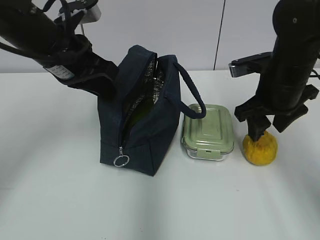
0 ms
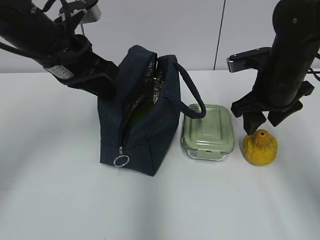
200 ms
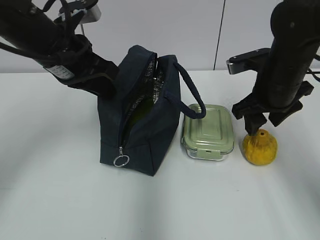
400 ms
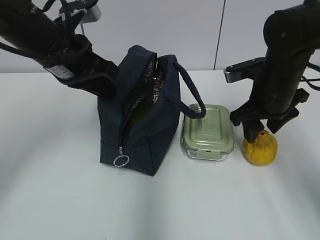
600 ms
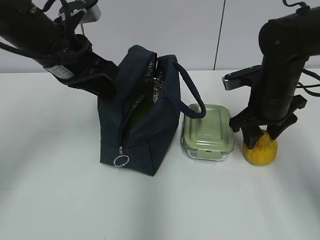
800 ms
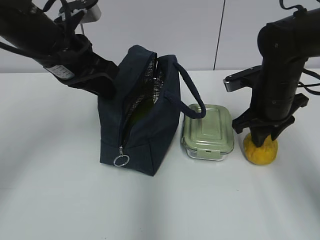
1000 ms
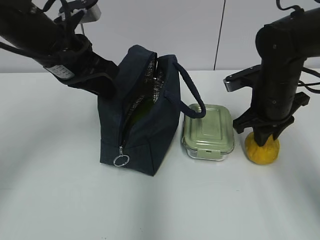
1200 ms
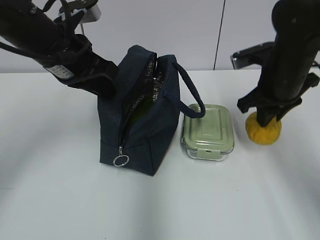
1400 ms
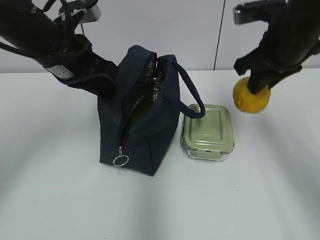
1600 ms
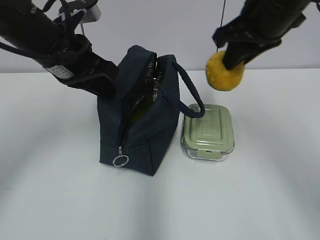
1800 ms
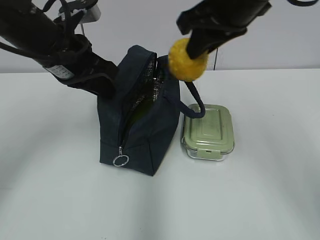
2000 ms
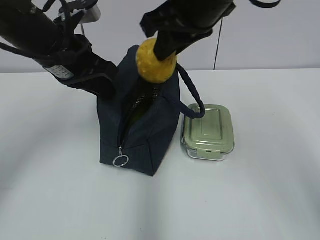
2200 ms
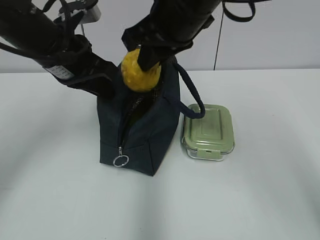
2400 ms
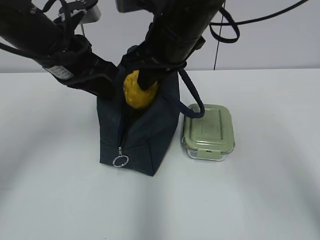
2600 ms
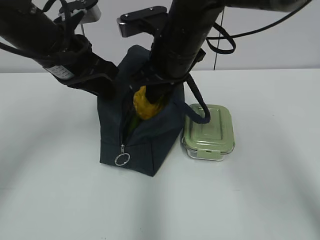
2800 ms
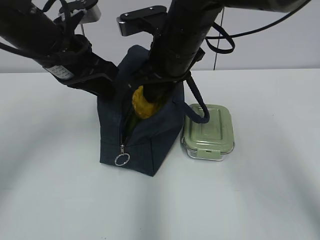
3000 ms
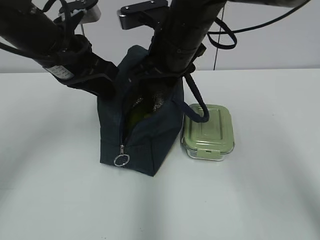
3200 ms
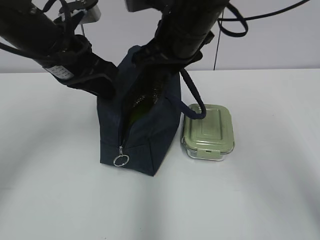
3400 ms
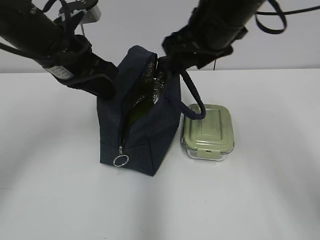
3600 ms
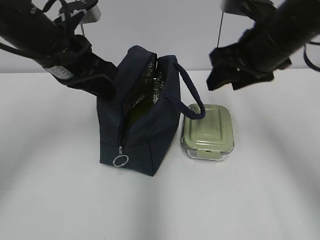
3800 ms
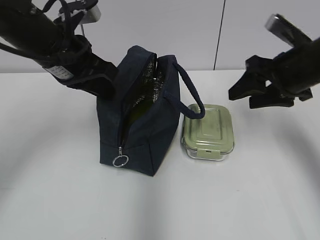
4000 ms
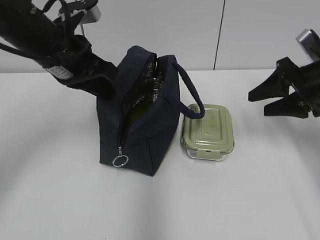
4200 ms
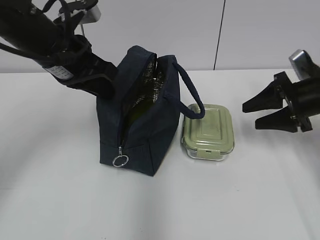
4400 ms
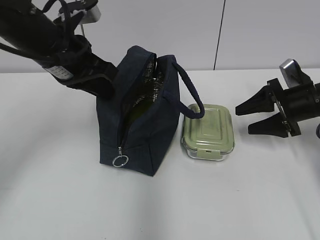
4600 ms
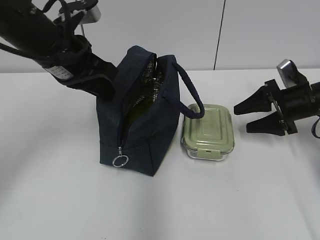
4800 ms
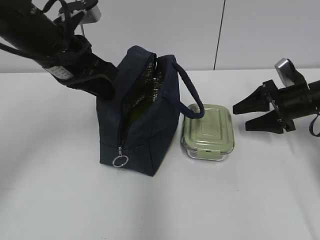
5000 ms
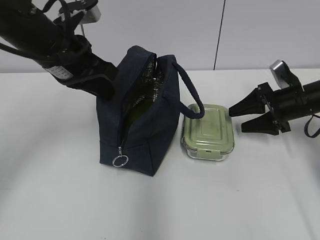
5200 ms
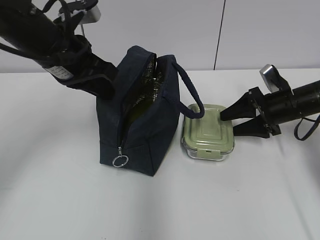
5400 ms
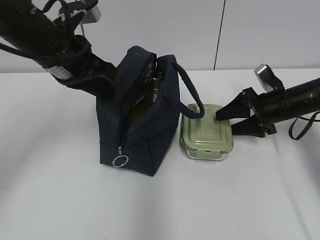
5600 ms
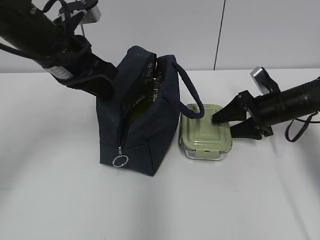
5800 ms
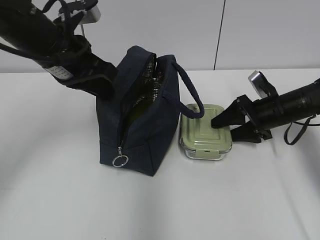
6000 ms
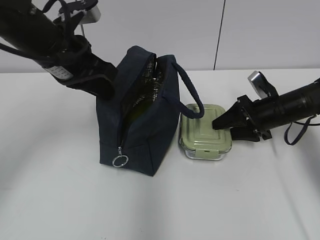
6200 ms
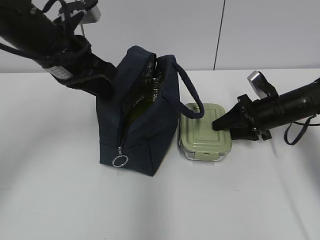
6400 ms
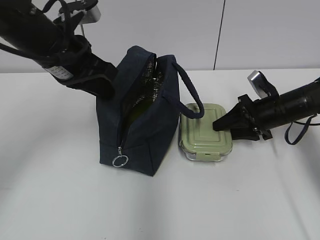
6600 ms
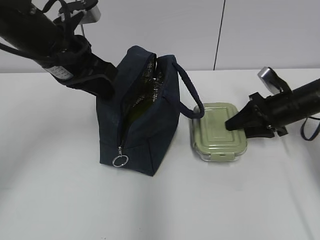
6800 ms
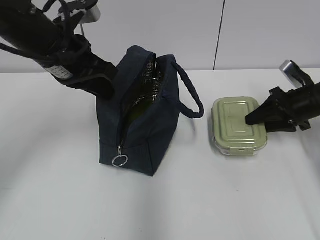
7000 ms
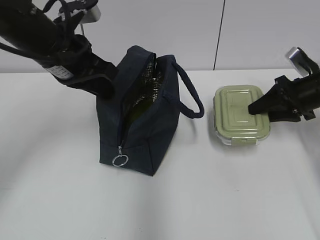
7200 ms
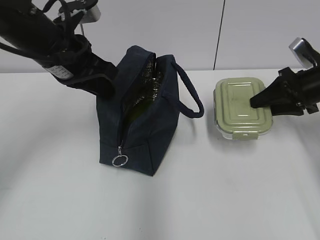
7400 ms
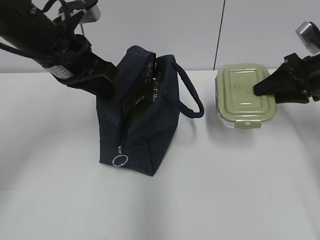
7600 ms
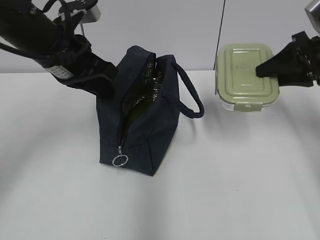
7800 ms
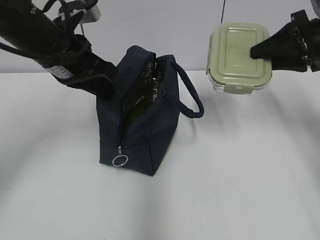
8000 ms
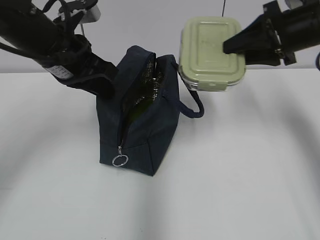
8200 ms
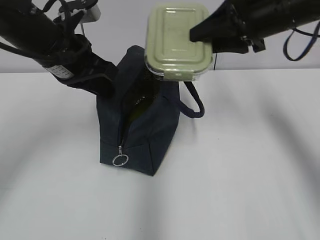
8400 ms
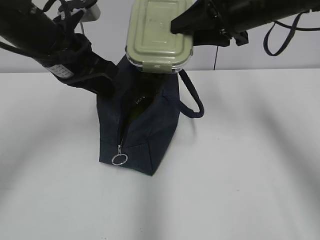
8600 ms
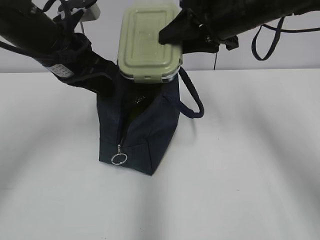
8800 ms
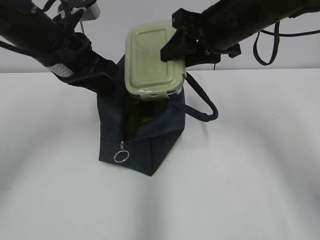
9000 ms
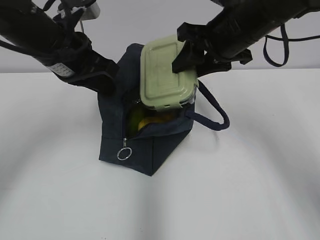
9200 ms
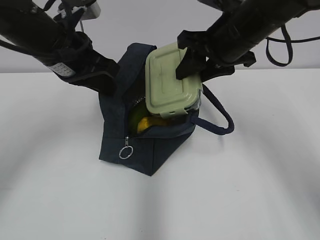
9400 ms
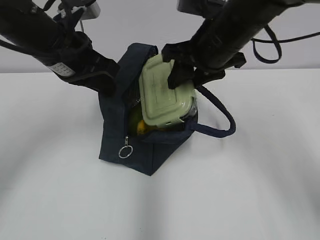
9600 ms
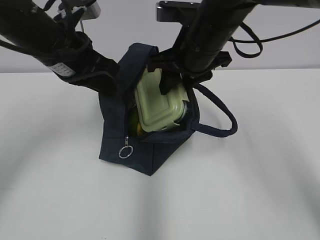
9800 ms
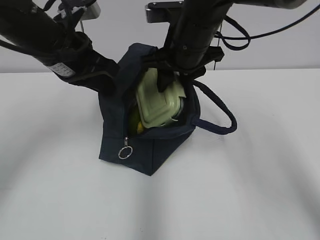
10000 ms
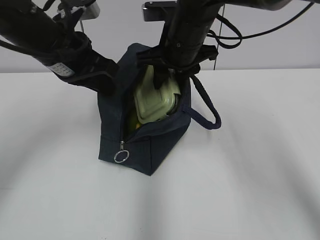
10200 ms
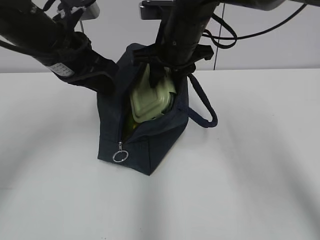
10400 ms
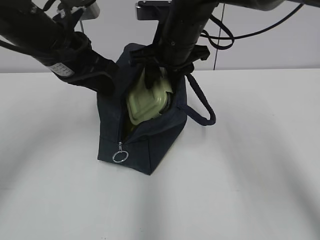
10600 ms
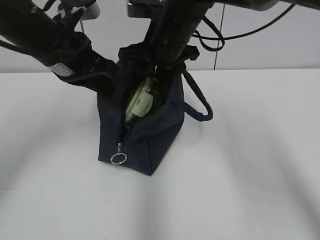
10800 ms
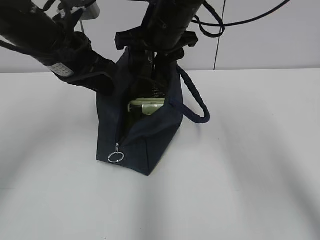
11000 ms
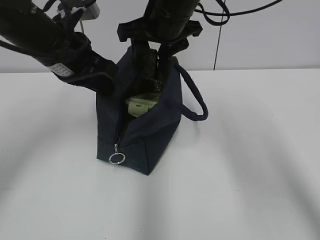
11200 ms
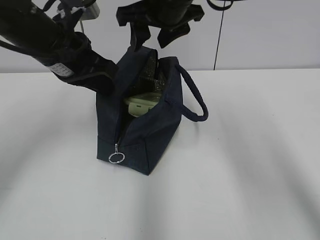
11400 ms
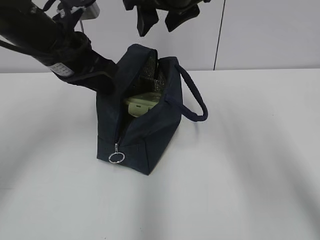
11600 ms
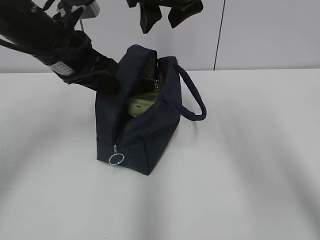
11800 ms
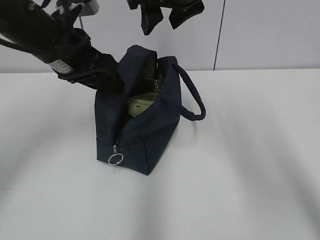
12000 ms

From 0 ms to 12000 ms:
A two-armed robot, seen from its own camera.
Step, from 0 ms to 1000 ms: Grab the pear with your right hand.
Step, from 1200 ms to 3400 ms: Place it into the bag with your right hand.
Step, from 3800 ms to 6000 ms: Grab the lunch box with your right hand.
Step, from 6200 ms to 11600 ms: Place it into the bag with your right hand.
From 0 ms to 1600 ms: The right gripper heads upward, covering roughly 10 cm, and closes its fingers.
From 1600 ms to 3000 ms: The right gripper moves to the left, roughly 15 cm.
From 3000 ms to 4400 ms: The right gripper goes roughly 30 cm to the right and downward.
From 4400 ms to 6000 ms: The right gripper goes roughly 5 cm downward.
From 6000 ms to 7600 ms: The right gripper is displaced upward and to the right by some 10 cm, and closes.
From 7600 ms to 9000 ms: The right gripper travels to the left and upward by approximately 20 cm.
From 9000 ms to 10400 ms: The right gripper travels to the left by about 5 cm.
From 10400 ms to 12000 ms: The left gripper opens up. The right gripper is displaced upward by approximately 10 cm.

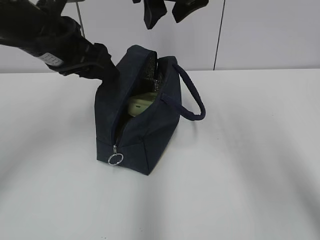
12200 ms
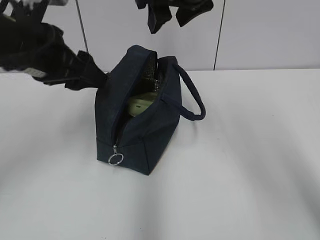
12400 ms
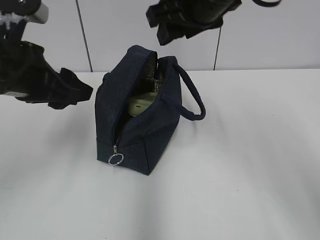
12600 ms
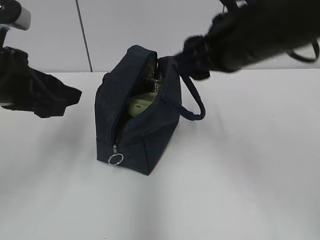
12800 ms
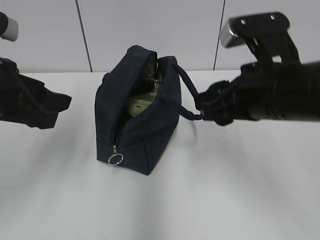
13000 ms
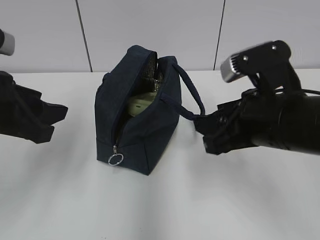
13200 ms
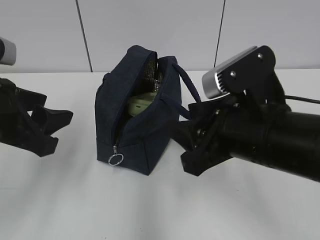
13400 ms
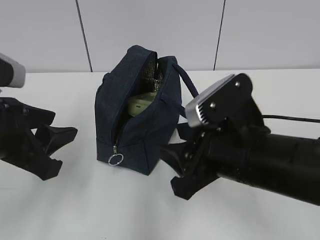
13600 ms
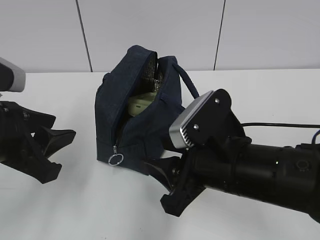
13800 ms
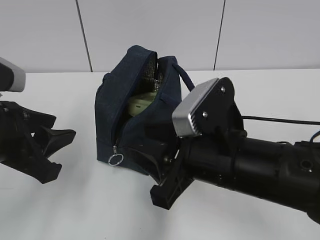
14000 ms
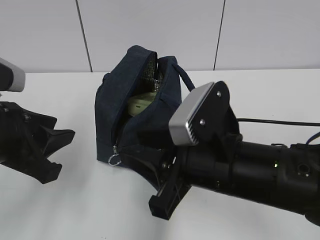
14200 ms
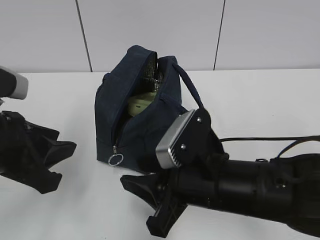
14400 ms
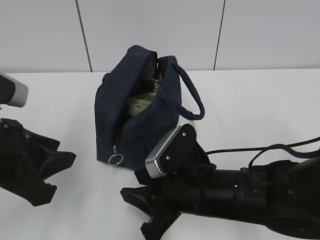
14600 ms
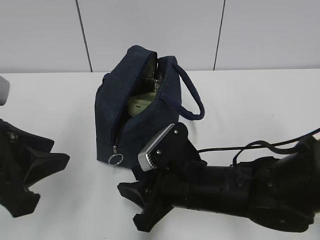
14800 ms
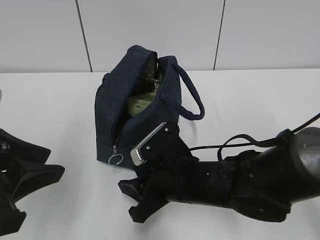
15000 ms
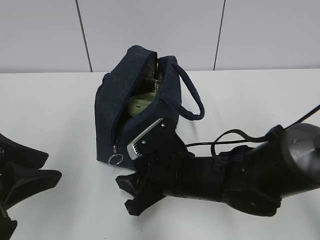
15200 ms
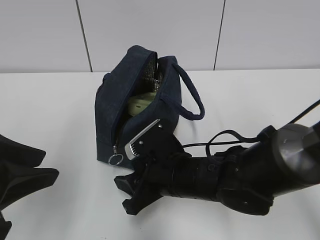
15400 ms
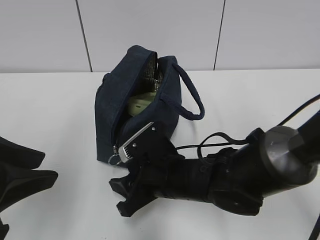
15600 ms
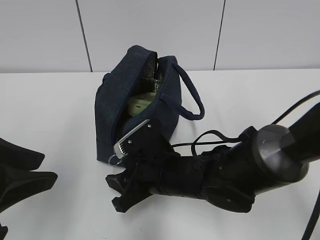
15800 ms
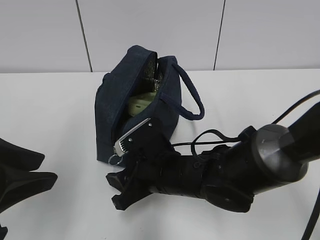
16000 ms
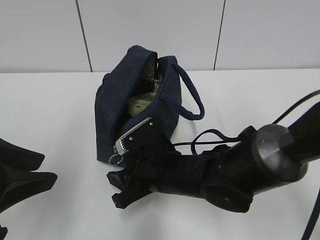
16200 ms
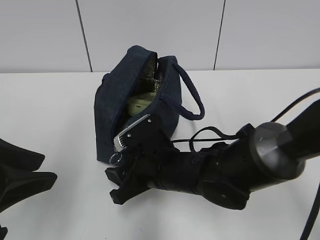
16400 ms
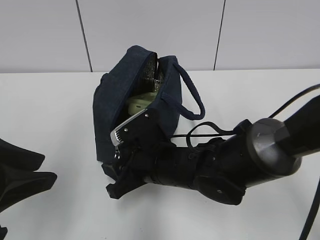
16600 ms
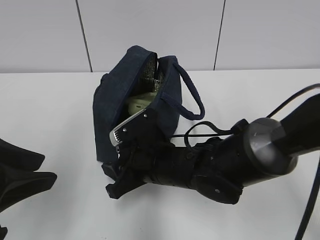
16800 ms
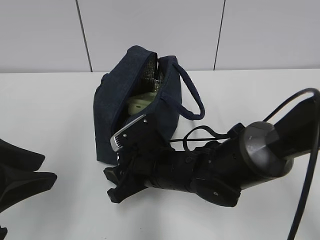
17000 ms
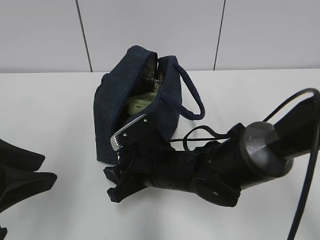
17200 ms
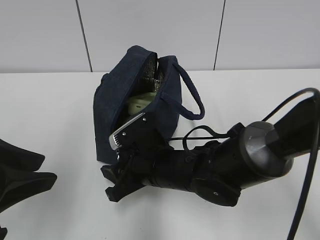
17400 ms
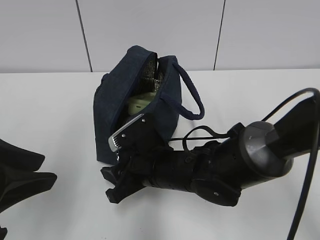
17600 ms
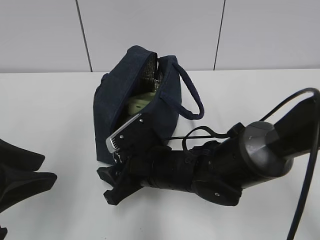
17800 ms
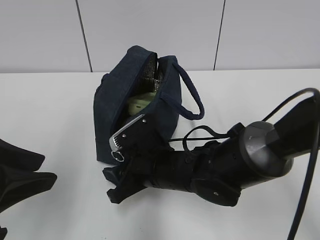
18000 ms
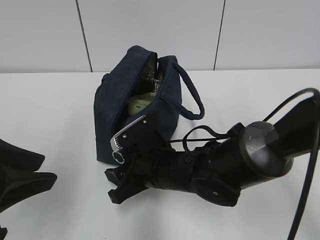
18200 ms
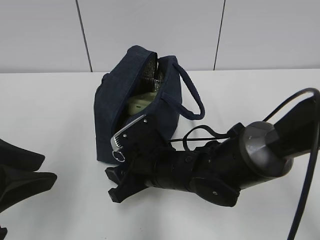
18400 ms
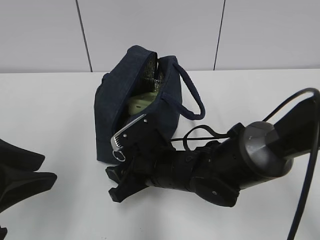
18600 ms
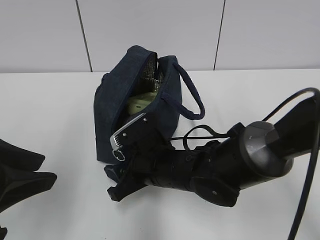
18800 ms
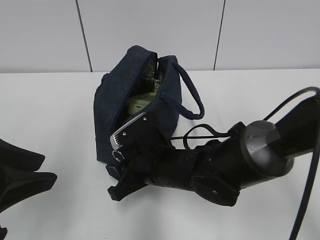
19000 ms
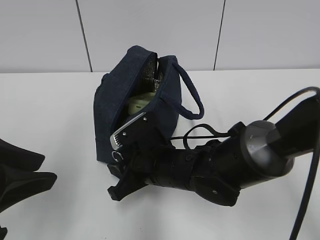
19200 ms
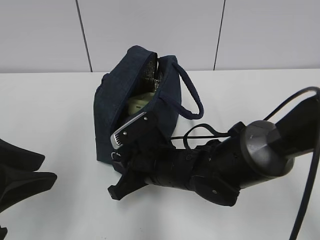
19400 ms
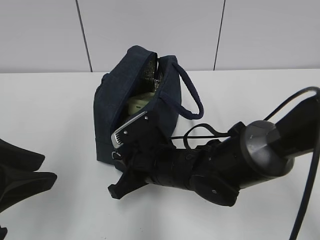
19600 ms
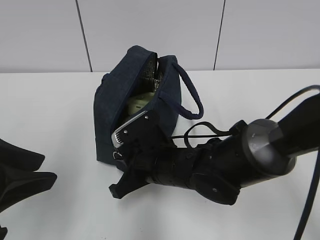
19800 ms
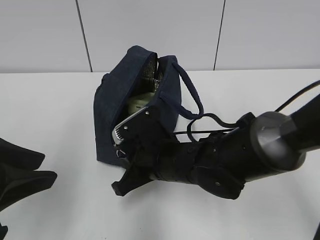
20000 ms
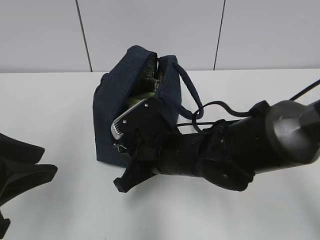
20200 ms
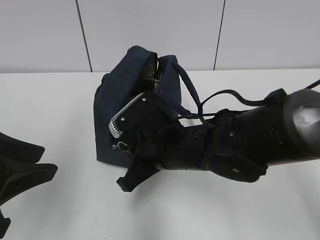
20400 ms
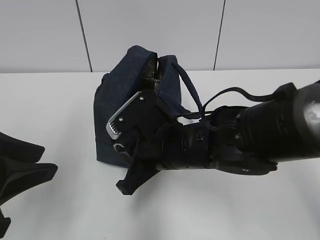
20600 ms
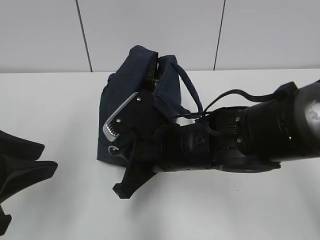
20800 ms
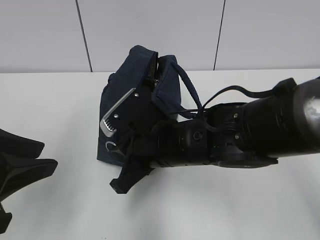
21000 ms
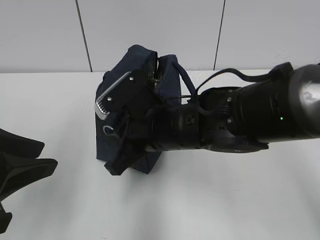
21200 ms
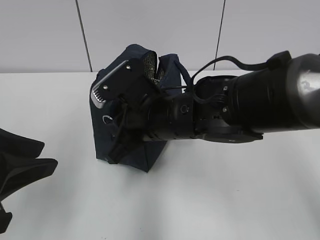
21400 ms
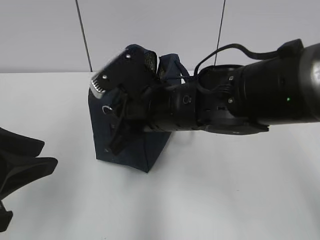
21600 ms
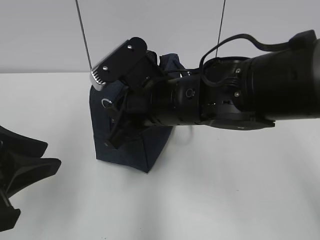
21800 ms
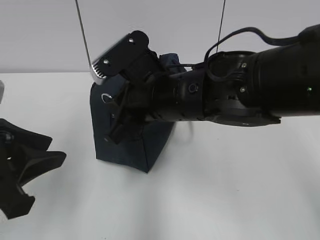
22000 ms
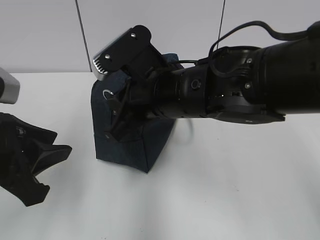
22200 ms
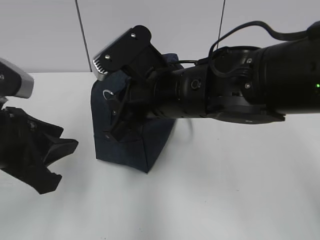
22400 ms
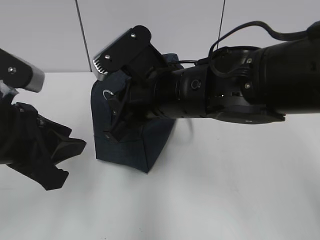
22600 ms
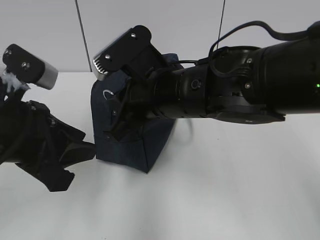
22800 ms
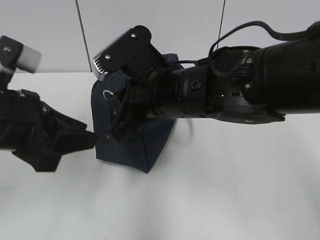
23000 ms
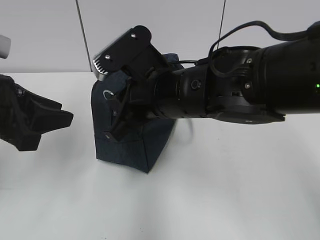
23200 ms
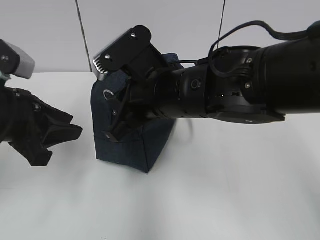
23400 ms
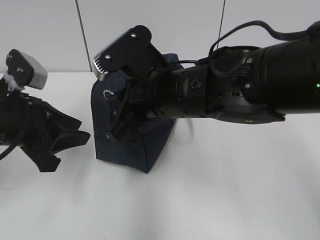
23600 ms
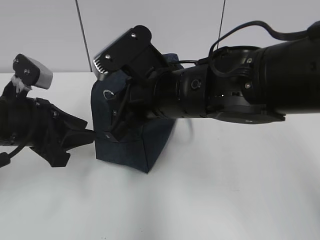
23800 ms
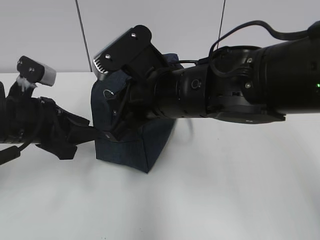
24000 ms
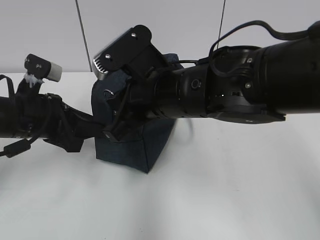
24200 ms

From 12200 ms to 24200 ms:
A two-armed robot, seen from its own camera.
From 12200 ms to 13800 ms: The left gripper travels backward and downward by roughly 15 cm, while the right gripper heads downward and backward, covering approximately 25 cm.
From 13800 ms to 15200 ms: The right gripper heads downward and forward, covering approximately 10 cm. Meanwhile the left gripper changes place by approximately 5 cm.
From 15200 ms to 16600 ms: The grippers make only small movements.
From 16600 ms to 18200 ms: Both grippers stay put.
From 18200 ms to 19800 ms: The right gripper closes.
From 19800 ms to 21200 ms: The right gripper heads upward, covering approximately 10 cm.
From 21200 ms to 22600 ms: The left gripper travels forward by approximately 5 cm, while the right gripper travels upward by some 5 cm.
From 22600 ms to 24200 ms: The left gripper is displaced forward and downward by about 10 cm.
